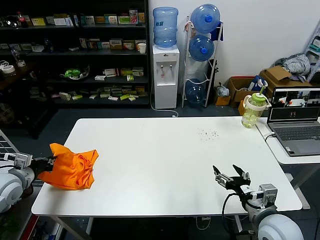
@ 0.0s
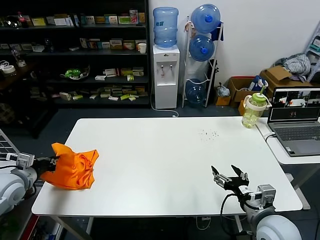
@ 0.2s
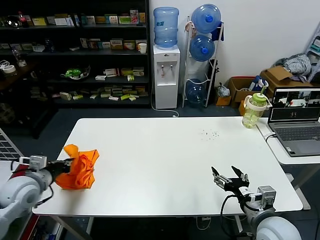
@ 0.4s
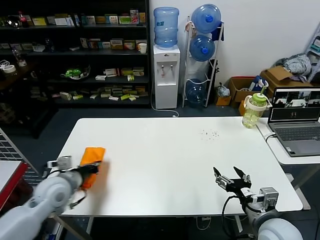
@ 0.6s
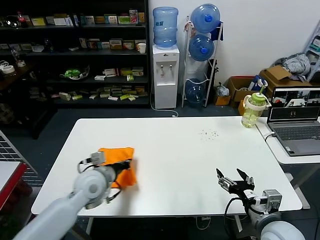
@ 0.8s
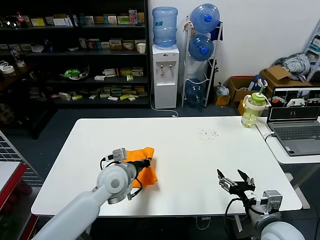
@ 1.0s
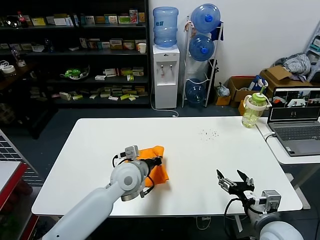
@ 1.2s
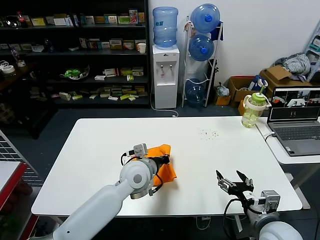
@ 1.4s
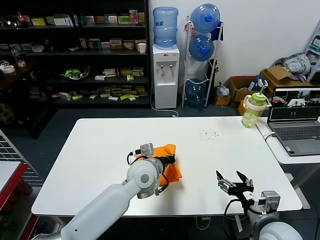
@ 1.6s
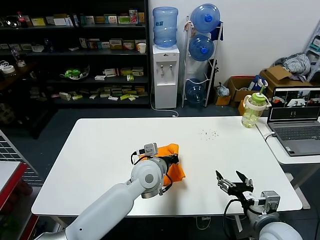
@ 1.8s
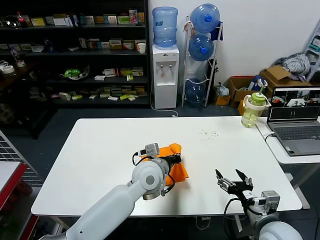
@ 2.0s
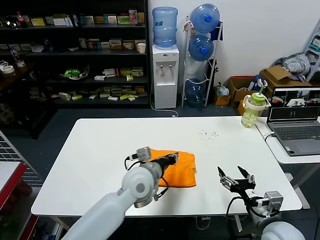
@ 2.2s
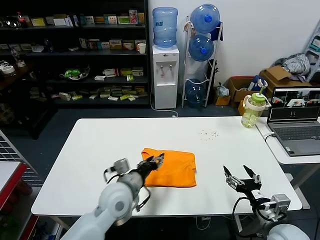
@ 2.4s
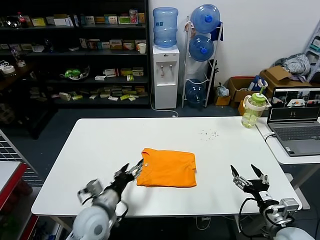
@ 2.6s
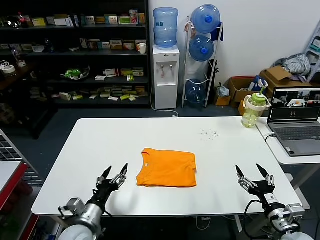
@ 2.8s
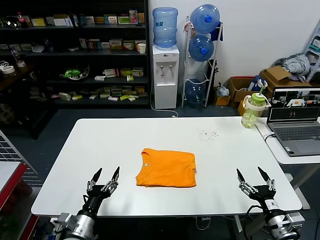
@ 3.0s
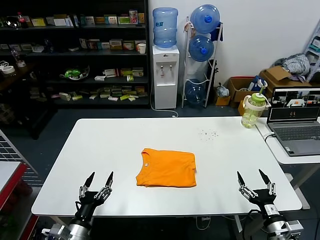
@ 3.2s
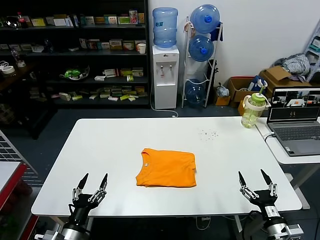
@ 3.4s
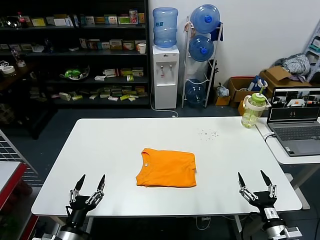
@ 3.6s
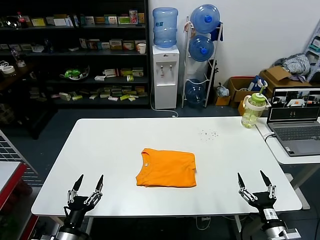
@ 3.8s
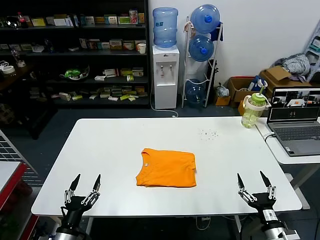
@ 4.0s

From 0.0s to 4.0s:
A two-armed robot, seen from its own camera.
Task of the whole recording: fold and organize the clothes.
Step, from 0.0s to 2.0s: Flip the folded clothes over with left gripper.
From 0.0s to 1.4s: The left gripper is displaced to the right by some 40 cm.
From 1.4s to 2.6s: The right gripper travels to the right by approximately 5 cm. Meanwhile the left gripper travels backward, to the left and downward by some 15 cm, and opens its fingers.
From 2.6s to 4.0s: The left gripper travels backward, to the left and downward by roughly 20 cm. The right gripper travels downward by about 10 cm.

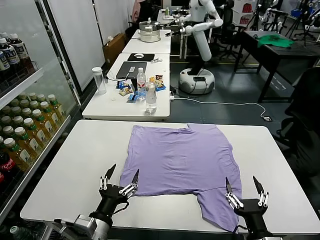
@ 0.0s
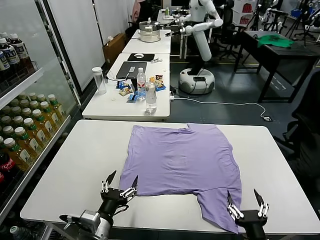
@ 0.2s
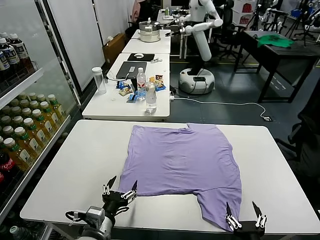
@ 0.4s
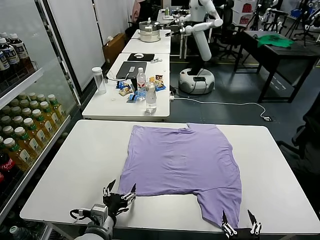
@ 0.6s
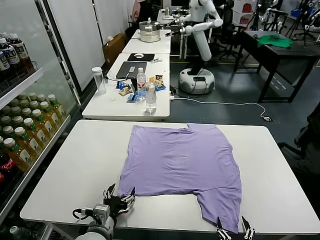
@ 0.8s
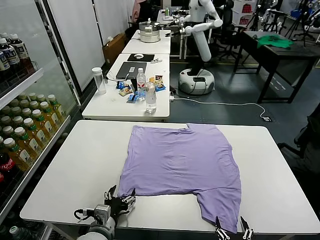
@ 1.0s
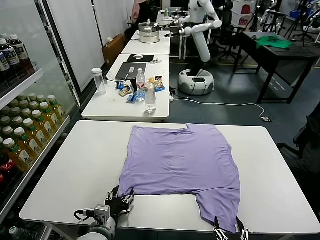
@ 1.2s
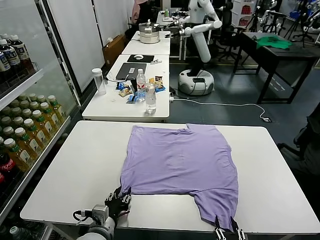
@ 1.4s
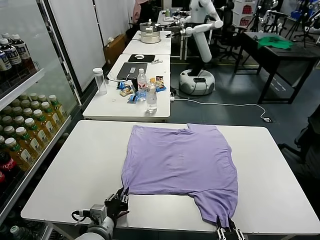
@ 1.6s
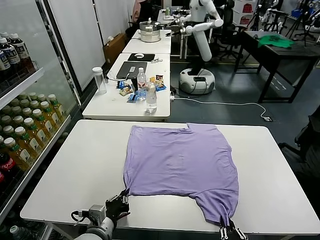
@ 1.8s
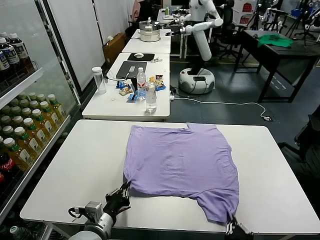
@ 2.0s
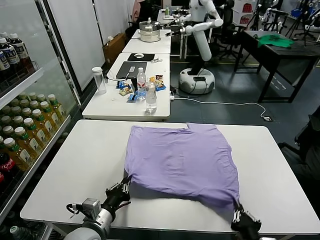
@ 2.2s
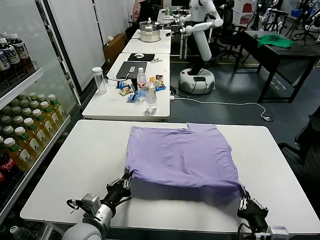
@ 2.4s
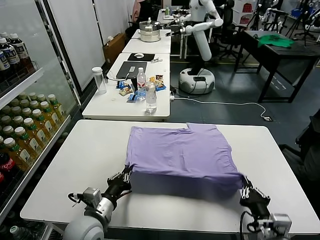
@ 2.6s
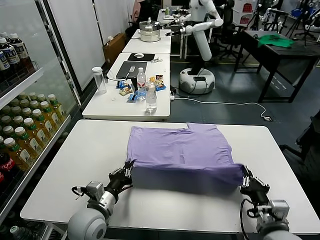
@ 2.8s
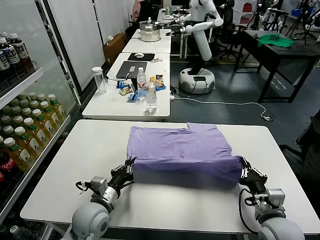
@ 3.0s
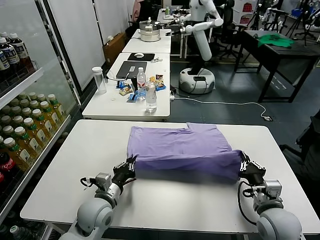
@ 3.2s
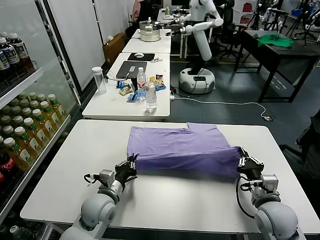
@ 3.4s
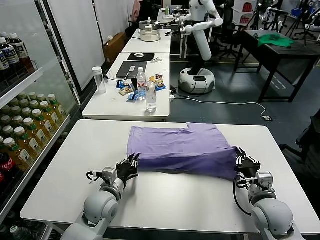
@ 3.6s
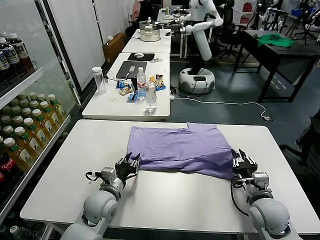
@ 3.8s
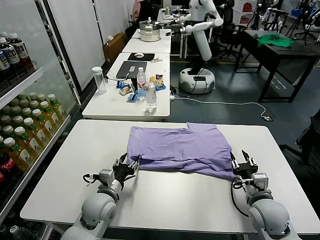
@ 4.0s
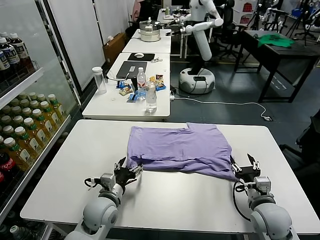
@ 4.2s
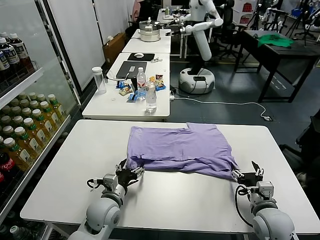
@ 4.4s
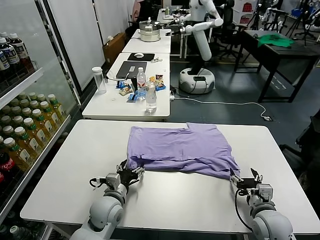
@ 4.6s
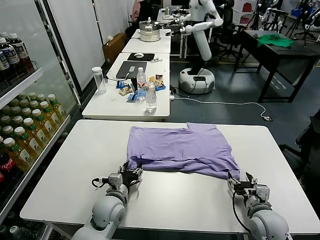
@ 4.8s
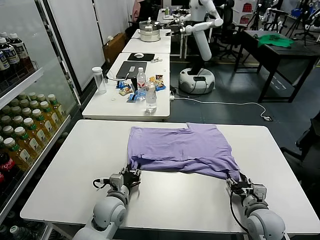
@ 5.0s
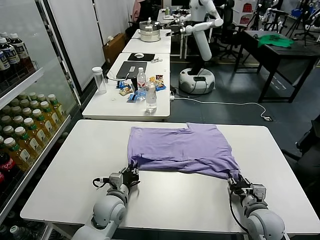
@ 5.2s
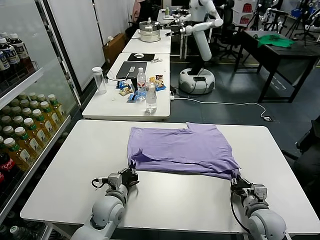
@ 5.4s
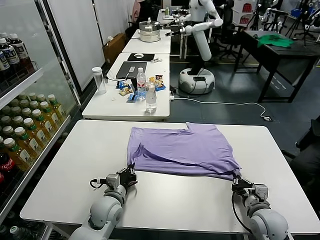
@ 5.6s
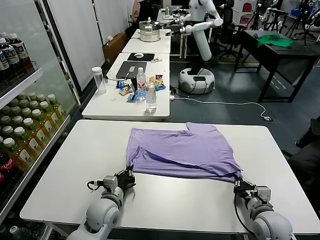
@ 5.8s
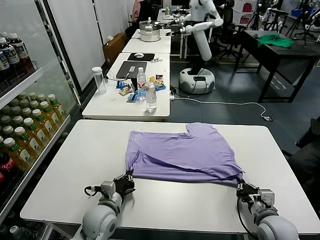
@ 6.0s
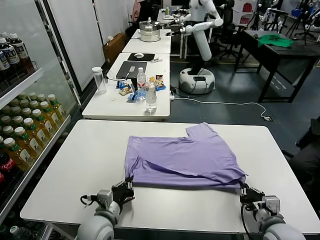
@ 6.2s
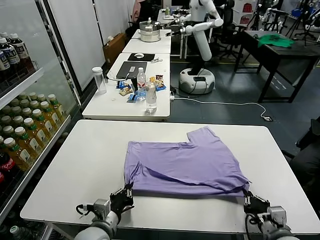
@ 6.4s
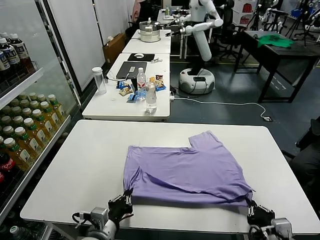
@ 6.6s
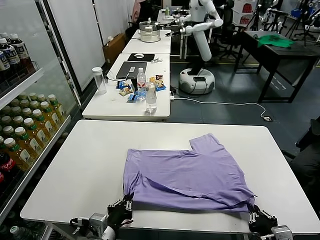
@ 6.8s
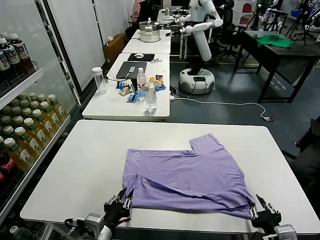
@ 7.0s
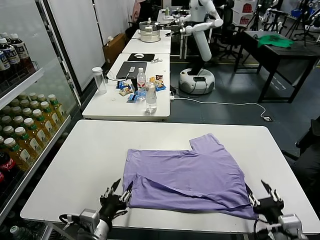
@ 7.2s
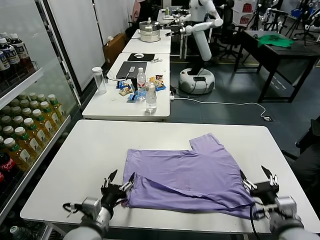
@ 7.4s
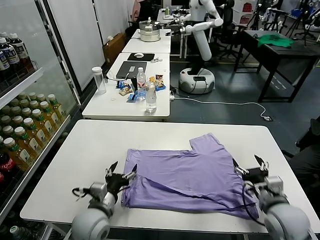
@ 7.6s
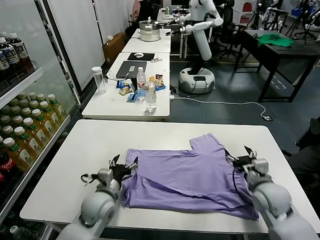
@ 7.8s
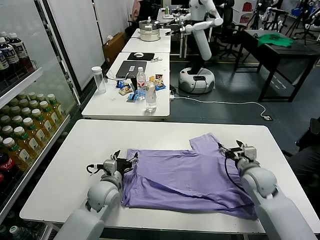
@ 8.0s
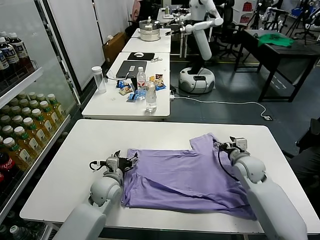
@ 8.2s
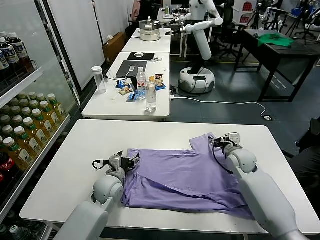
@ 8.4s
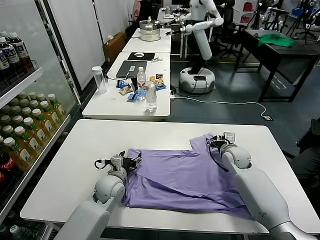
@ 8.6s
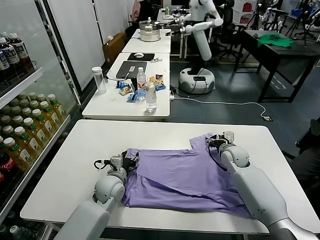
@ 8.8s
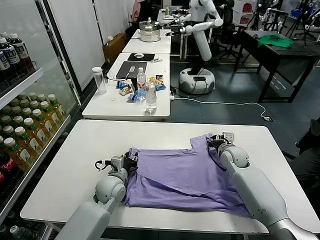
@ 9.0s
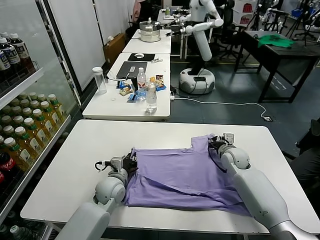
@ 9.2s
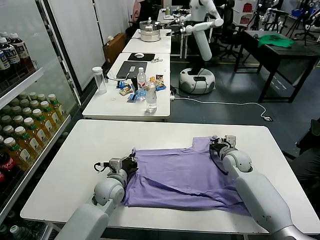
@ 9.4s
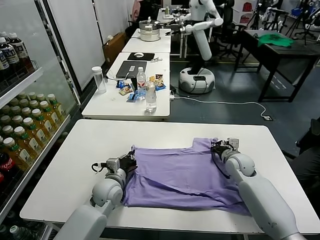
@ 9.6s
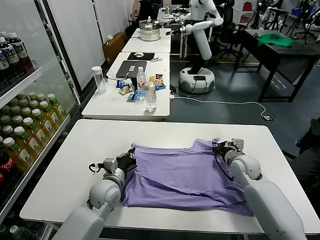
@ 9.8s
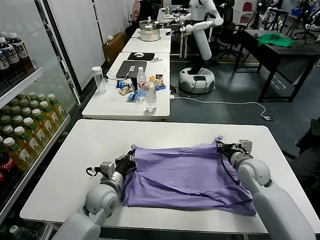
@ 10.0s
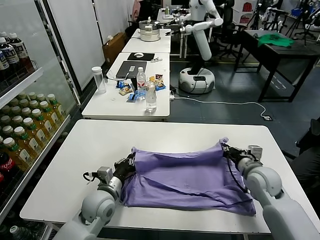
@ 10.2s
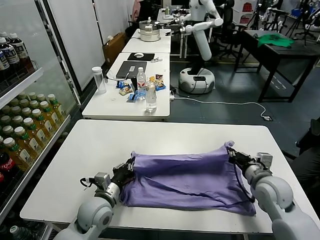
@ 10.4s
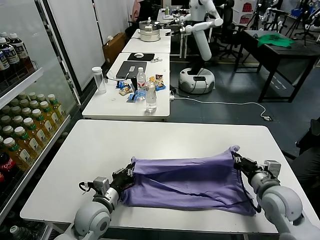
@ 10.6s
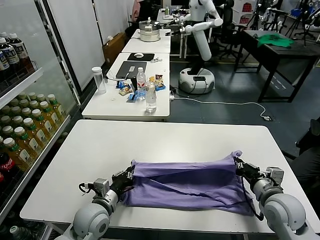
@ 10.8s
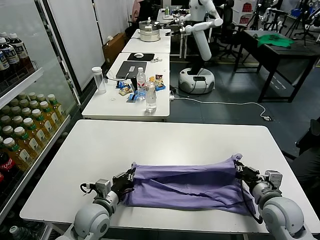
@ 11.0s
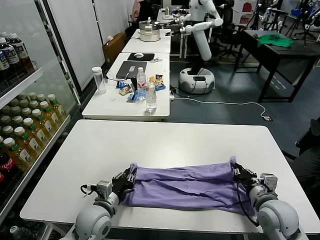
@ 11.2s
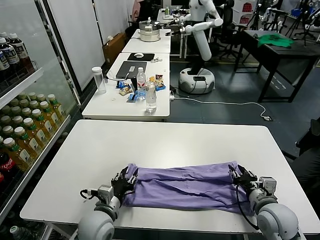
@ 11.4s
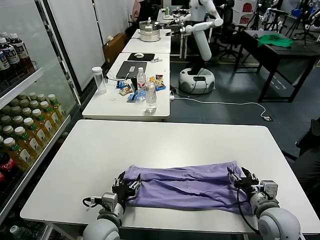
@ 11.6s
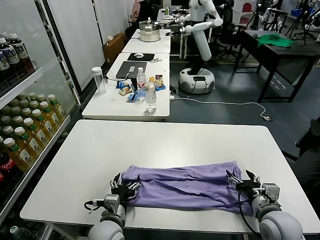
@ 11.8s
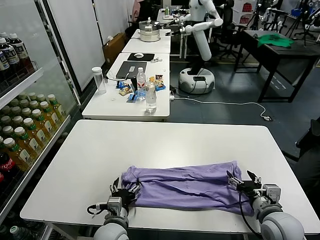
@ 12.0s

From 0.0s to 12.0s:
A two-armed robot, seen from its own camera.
Task of the whole recording: fold and organize the clothes.
Step, from 0.0s to 1.6s: use both grippers simultaneously to clamp the lower edge of the clothing fabric.
Step, from 1.8s to 4.2s: use both grippers to drag the lower edge of the fabric forward and fold it over the upper edge.
Step, from 4.4s to 7.2s: Drag the clothes downward with both gripper.
Step, from 7.4s to 9.2s: use both grippers simultaneously to clamp the upper edge of the clothing fabric.
Step, from 9.6s to 11.4s: use both grippers to drag the upper edge of the fabric backward and fold it over the lower edge.
From 1.6s to 3.0s: The left gripper moves forward, roughly 5 cm, while the right gripper moves forward, to the right and upward, some 20 cm.
From 3.0s to 4.4s: The right gripper opens its fingers; the left gripper opens up.
From 4.4s to 6.0s: The left gripper closes its fingers; the right gripper closes up.
From 6.0s to 7.6s: The left gripper travels backward and back again, some 15 cm each way, and opens; the right gripper reaches some 10 cm backward, then returns, and opens up.
From 7.6s to 9.0s: The left gripper travels forward by some 15 cm, and closes, while the right gripper heads forward, covering roughly 20 cm, and closes up.
From 9.0s to 10.4s: The left gripper shifts about 10 cm backward, and closes up; the right gripper travels backward by about 20 cm, and closes its fingers.
From 10.4s to 12.0s: The left gripper shifts roughly 10 cm backward and to the right, and opens its fingers. The right gripper goes approximately 10 cm backward, and opens.

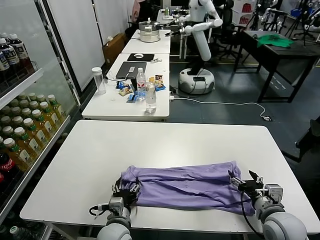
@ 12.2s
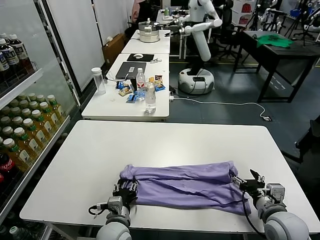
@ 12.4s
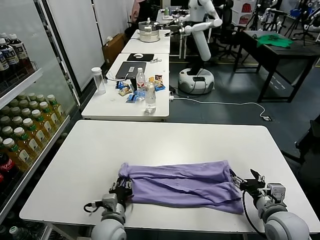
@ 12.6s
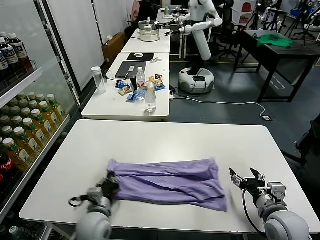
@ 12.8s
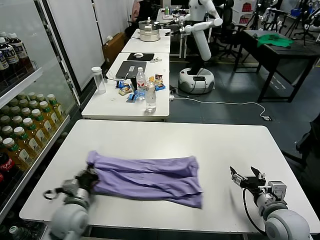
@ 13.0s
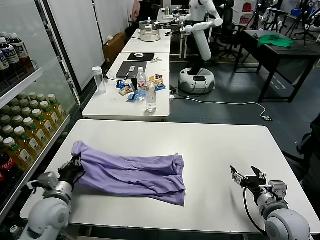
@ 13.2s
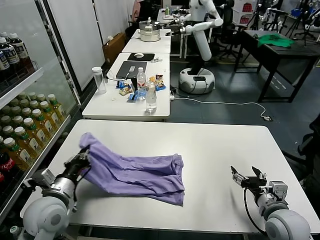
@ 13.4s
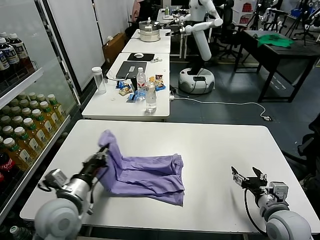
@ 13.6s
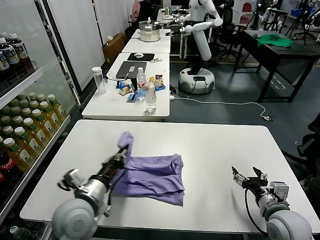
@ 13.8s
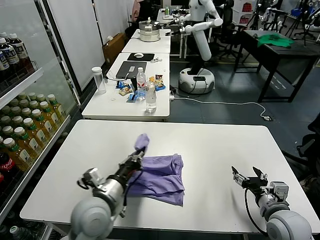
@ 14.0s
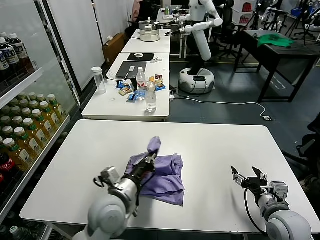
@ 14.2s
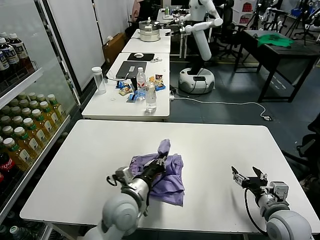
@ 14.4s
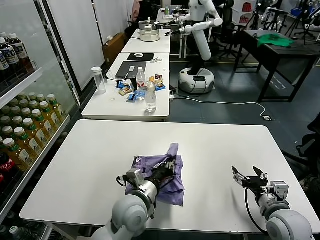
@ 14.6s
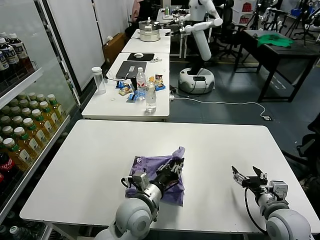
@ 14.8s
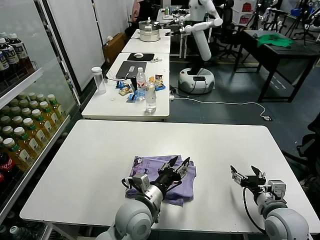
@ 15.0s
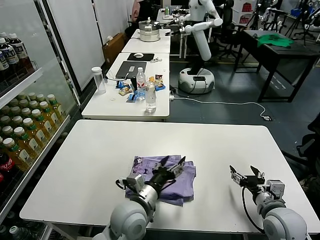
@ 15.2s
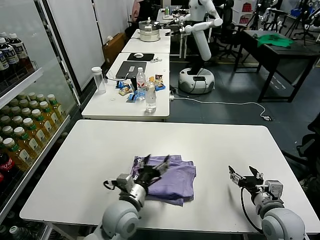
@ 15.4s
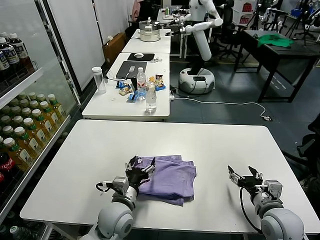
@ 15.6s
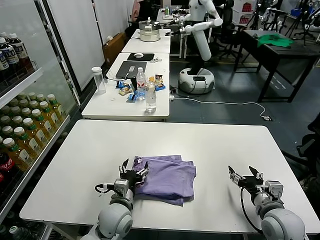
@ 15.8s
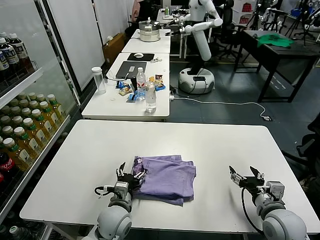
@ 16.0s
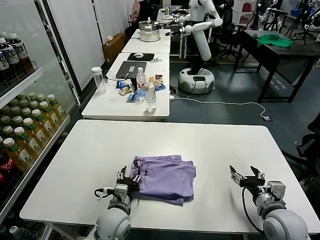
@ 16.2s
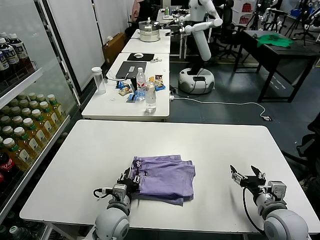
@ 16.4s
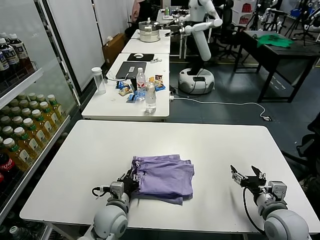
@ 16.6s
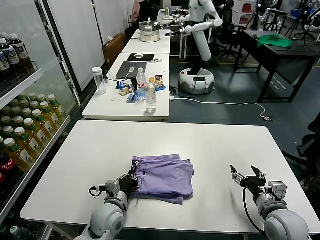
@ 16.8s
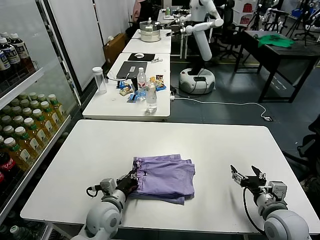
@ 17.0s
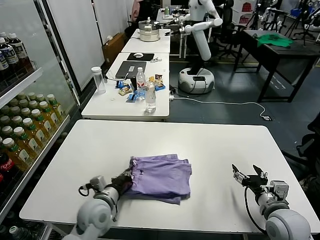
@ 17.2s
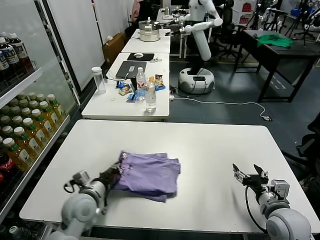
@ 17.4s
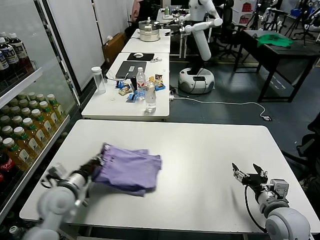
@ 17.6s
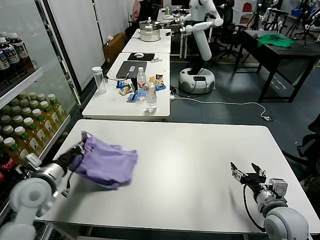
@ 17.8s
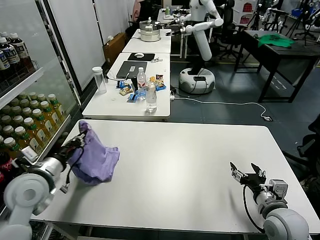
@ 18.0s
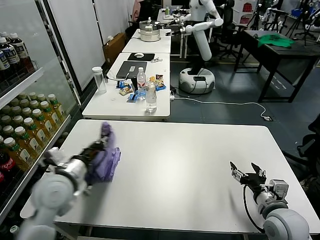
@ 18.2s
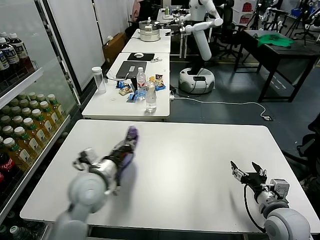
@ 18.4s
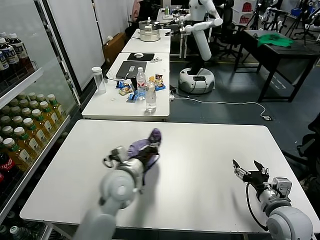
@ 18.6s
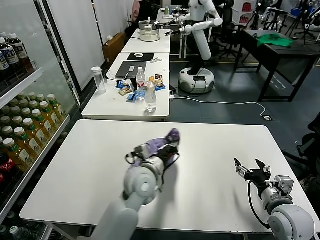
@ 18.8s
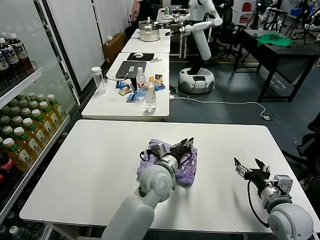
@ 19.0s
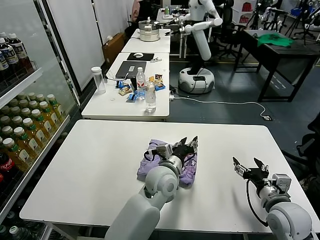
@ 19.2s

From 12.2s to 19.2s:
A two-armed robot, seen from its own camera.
Task of the whole recording: fold and organize the clothes.
Step, from 12.8s to 15.2s: use the left gripper to drag the left edge of the fabric to the left and folds it over the right edge.
From 12.2s to 13.6s: The left gripper shifts some 20 cm upward and to the left, and closes.
From 13.6s to 15.0s: The left gripper shifts some 20 cm to the right, and opens its fingers.
From 15.0s to 16.4s: The left gripper goes approximately 10 cm downward and to the left, and opens, then closes once more.
From 16.4s to 17.8s: The left gripper goes some 25 cm to the left and upward, and closes.
From 17.8s to 19.2s: The left gripper goes some 35 cm to the right, and opens its fingers.
